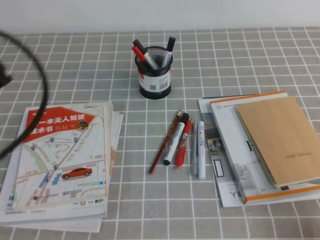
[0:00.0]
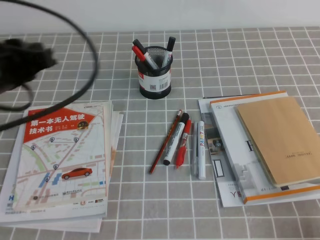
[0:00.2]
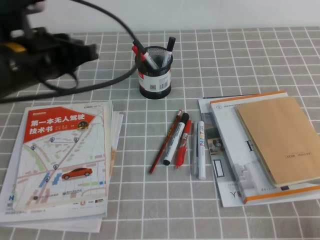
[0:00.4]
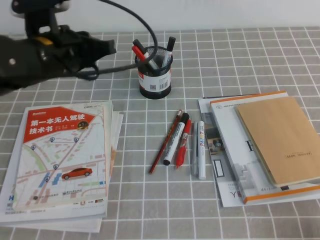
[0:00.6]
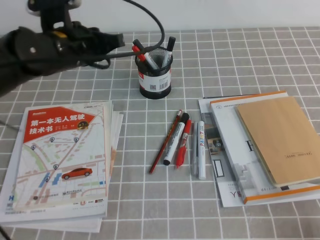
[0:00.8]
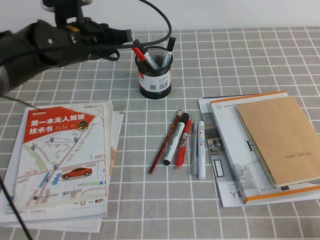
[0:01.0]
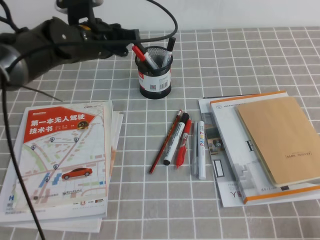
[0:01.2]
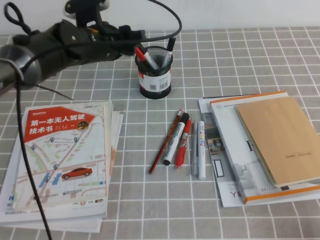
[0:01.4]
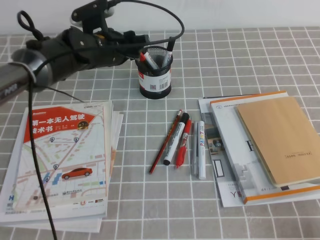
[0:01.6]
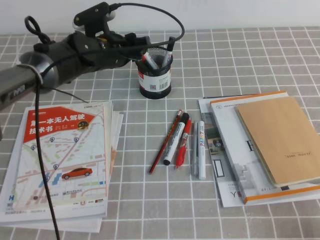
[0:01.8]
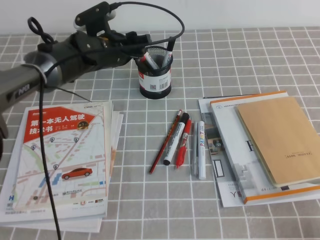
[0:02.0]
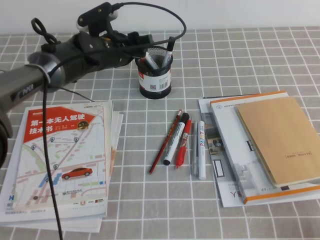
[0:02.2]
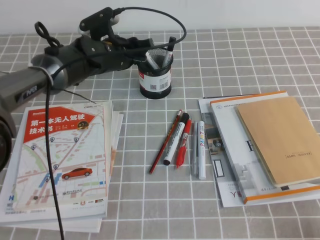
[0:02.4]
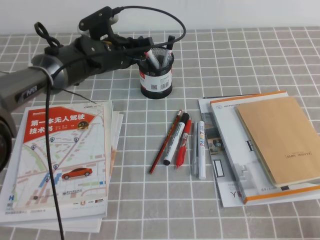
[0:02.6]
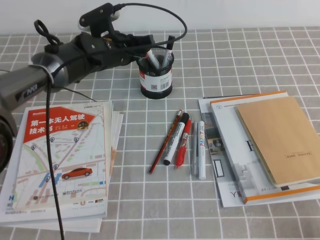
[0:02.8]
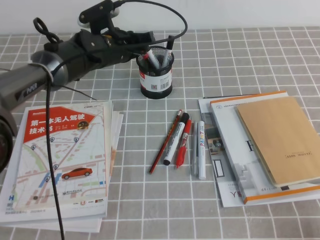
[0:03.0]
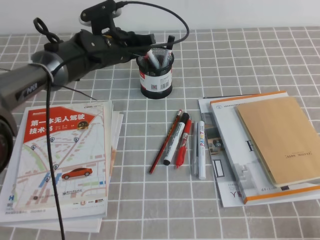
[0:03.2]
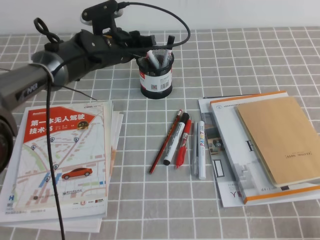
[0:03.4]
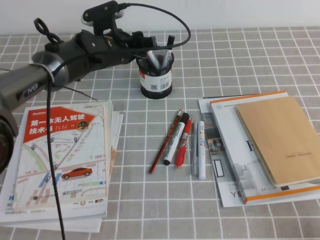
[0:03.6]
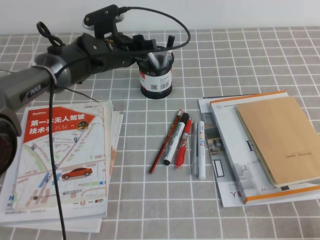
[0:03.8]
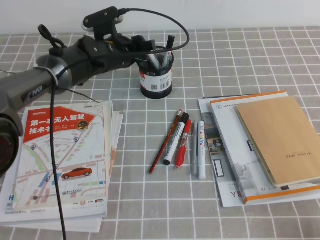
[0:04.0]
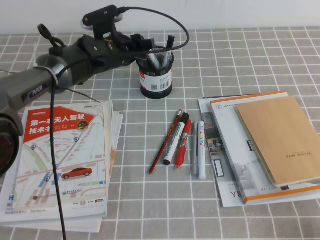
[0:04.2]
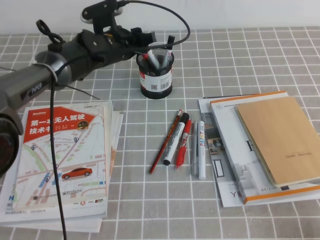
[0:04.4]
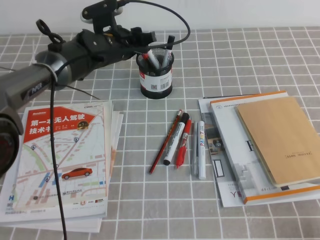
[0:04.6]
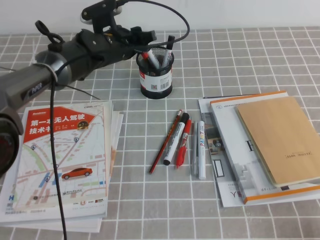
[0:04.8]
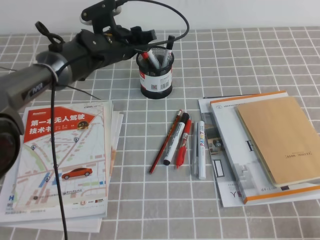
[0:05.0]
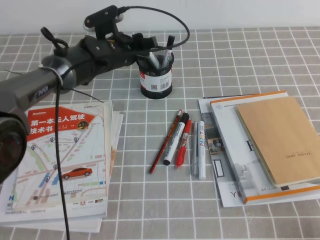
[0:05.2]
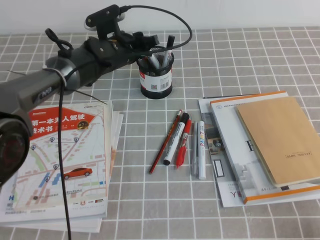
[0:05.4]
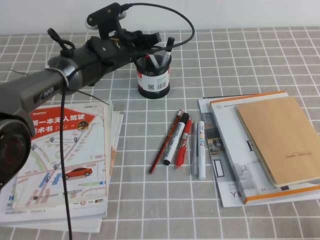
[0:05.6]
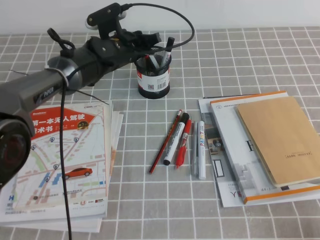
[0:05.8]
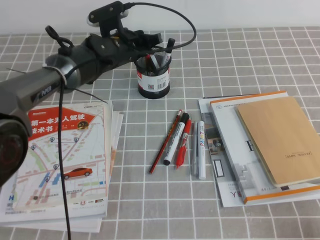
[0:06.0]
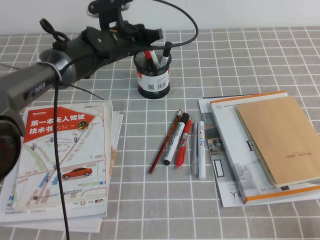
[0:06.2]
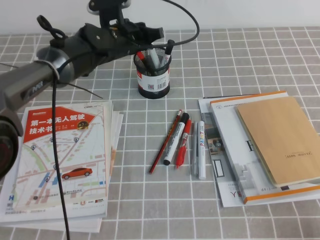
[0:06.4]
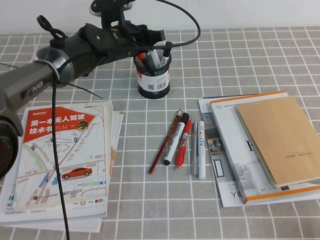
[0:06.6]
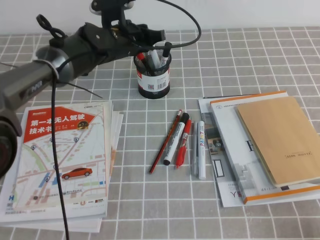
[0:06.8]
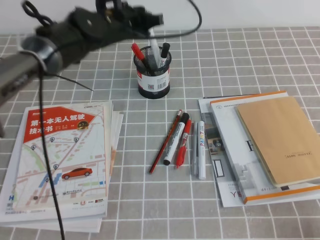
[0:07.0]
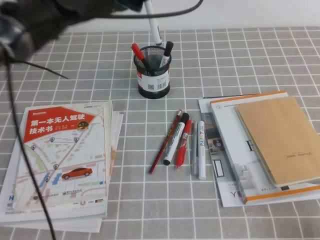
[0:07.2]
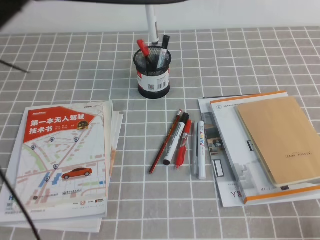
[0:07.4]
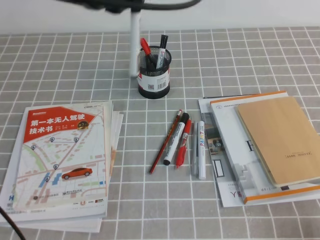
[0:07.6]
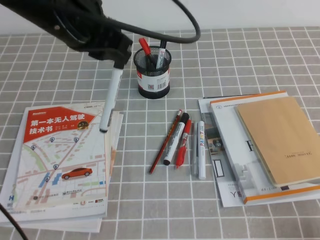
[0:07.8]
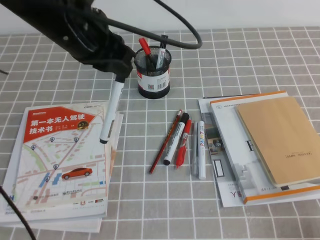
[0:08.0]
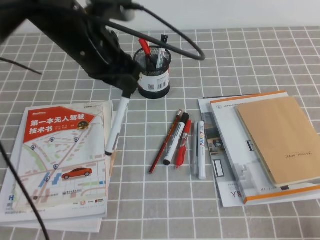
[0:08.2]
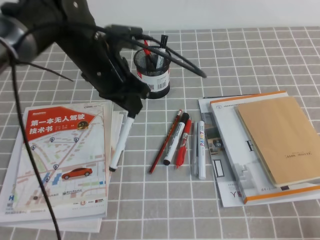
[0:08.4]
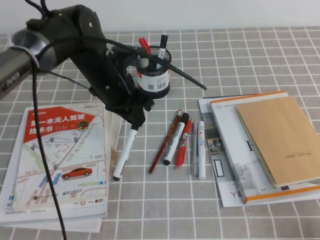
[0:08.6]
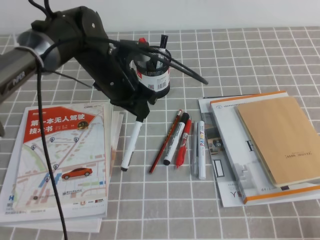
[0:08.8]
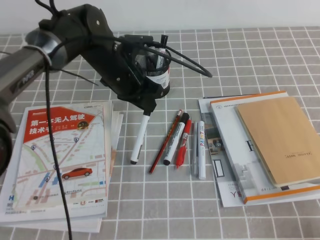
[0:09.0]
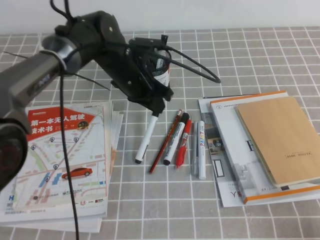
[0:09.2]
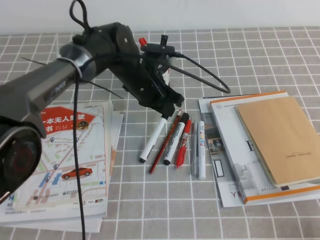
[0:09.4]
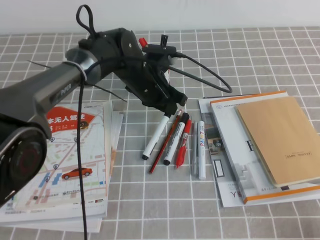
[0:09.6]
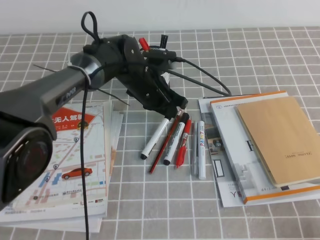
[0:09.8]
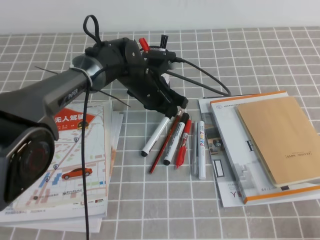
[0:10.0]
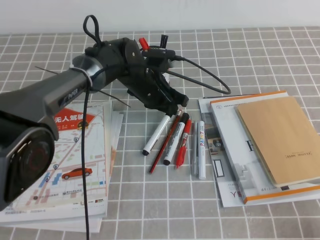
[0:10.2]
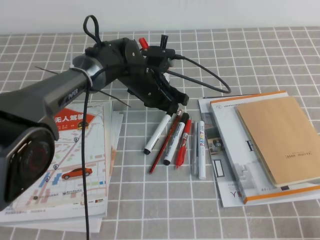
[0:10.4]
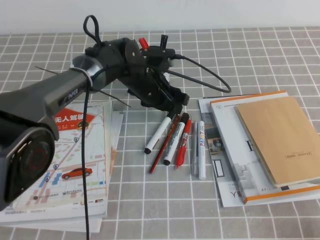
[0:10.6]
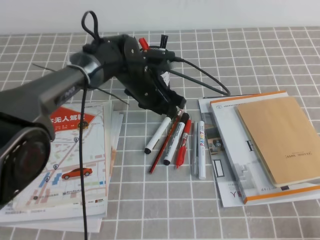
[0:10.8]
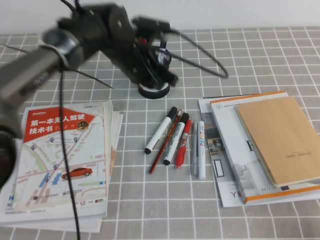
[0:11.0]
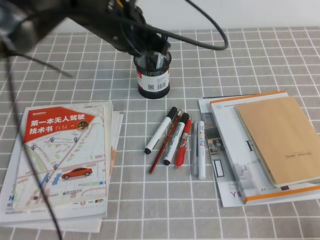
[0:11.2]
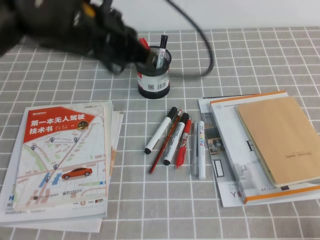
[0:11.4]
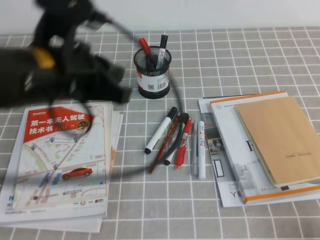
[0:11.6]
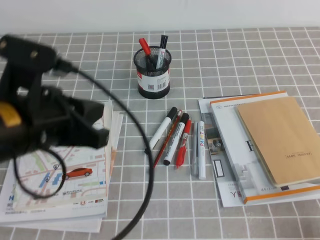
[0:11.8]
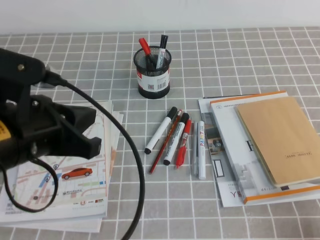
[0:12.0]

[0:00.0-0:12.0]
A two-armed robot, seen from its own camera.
0:00.0 to 0:01.6: The left gripper shifts some 30 cm forward and to the right, and opens.
0:01.6 to 0:03.0: The left gripper closes.
0:03.0 to 0:04.4: The left gripper opens up.
0:04.4 to 0:06.0: The left gripper closes.
0:06.0 to 0:07.6: The left gripper goes about 25 cm upward and backward.
0:07.6 to 0:09.0: The left gripper goes roughly 20 cm downward.
0:09.0 to 0:10.4: The left gripper moves downward, about 5 cm.
0:10.4 to 0:12.0: The left gripper moves backward, upward and to the left, roughly 30 cm, and closes.

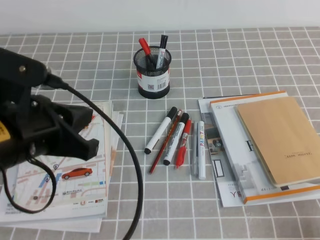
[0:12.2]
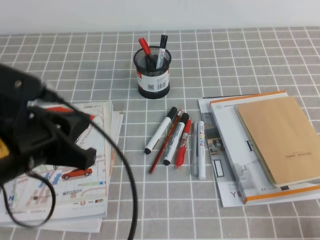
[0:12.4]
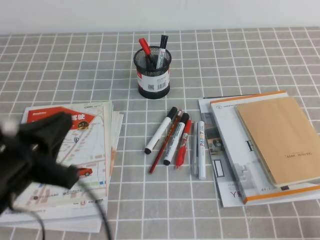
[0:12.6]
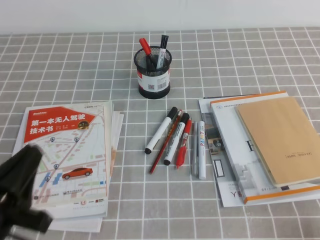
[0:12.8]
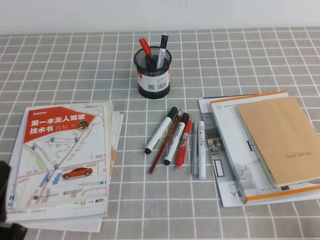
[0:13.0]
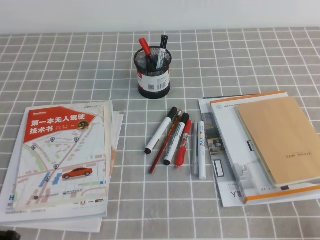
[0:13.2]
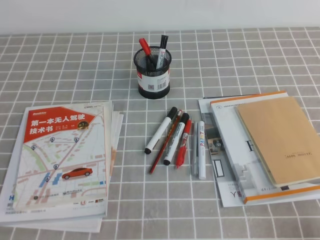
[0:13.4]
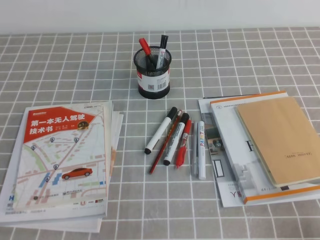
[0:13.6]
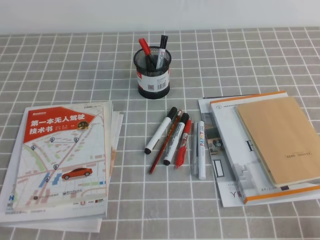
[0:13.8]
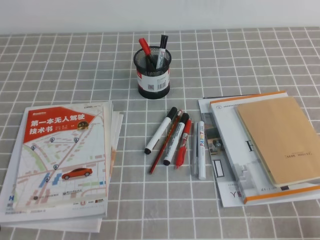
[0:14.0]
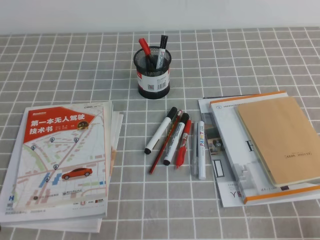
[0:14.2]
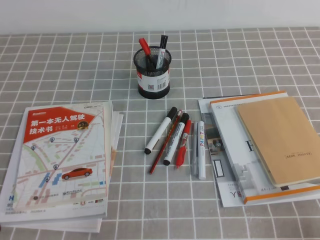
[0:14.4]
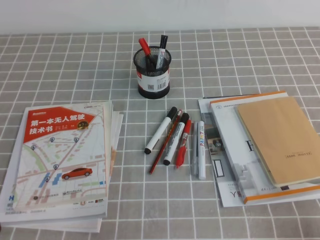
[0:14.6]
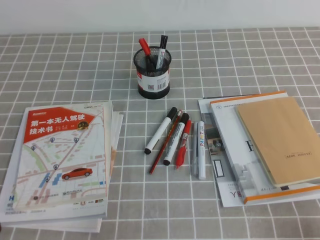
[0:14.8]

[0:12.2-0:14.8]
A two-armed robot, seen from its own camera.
Step, 0:12.2 to 0:14.8: Pick up the pen from the pen holder.
0:12.2 to 0:13.4: The left gripper travels downward, backward and to the left by roughly 20 cm.
0:13.4 to 0:14.8: The grippers move only a little.
